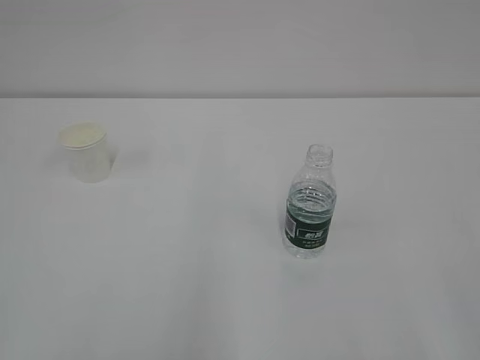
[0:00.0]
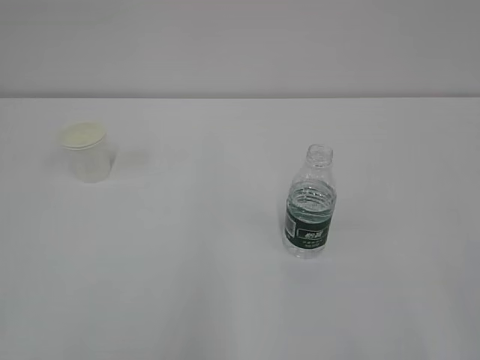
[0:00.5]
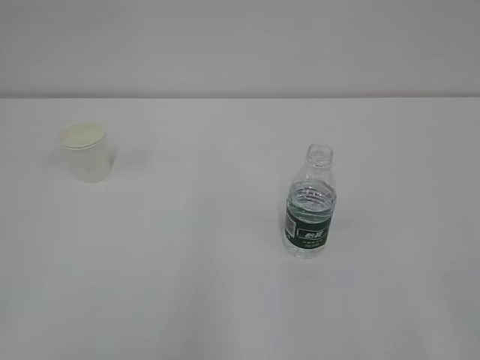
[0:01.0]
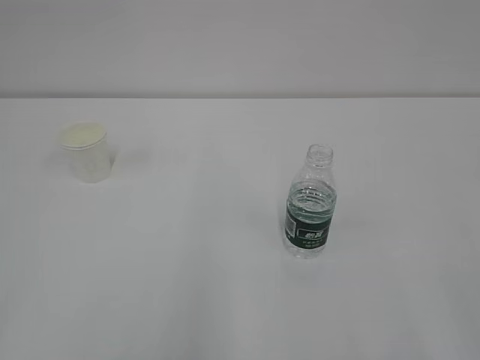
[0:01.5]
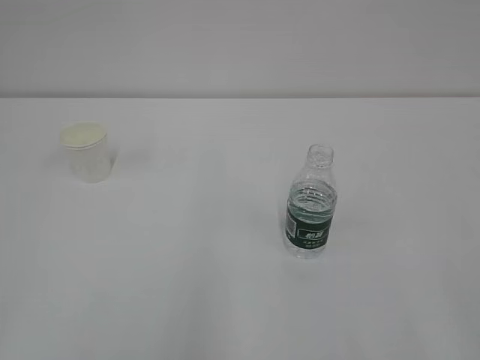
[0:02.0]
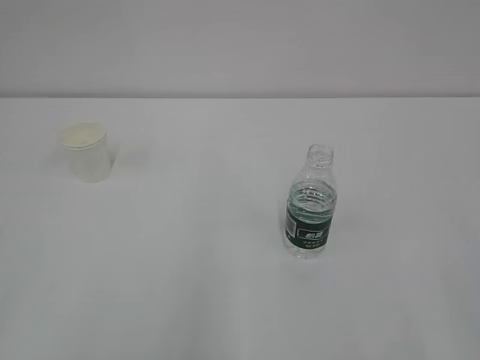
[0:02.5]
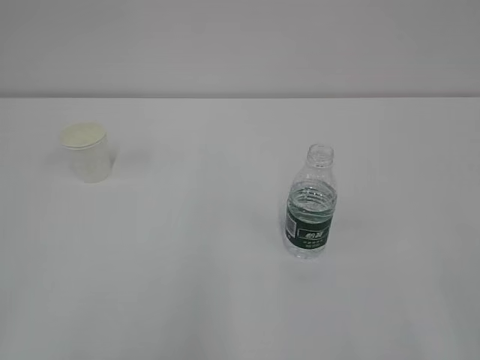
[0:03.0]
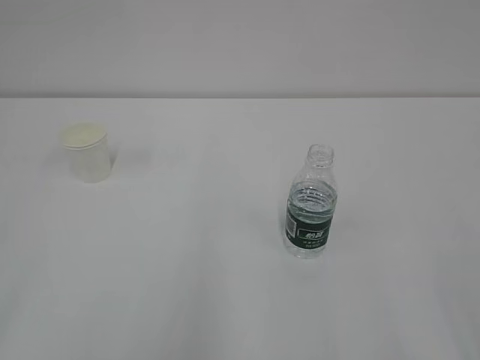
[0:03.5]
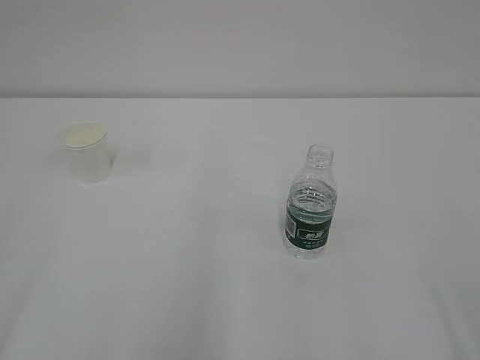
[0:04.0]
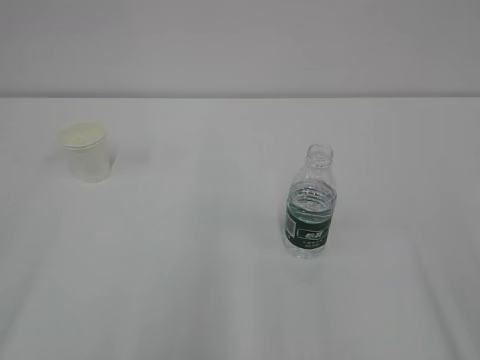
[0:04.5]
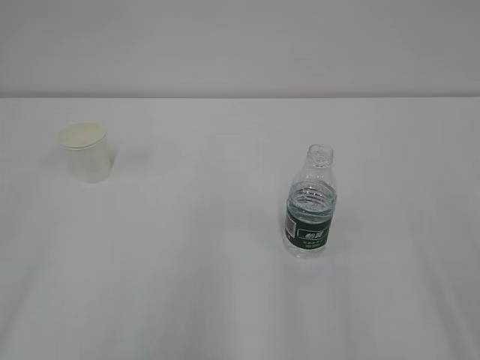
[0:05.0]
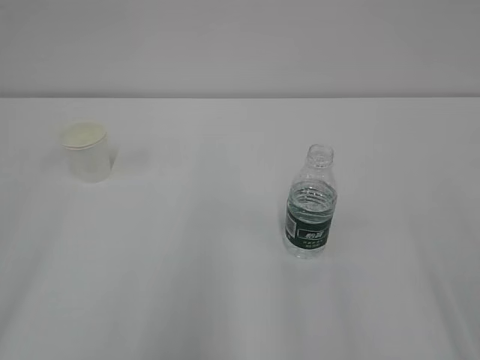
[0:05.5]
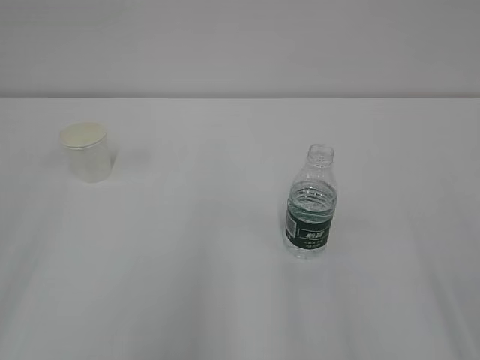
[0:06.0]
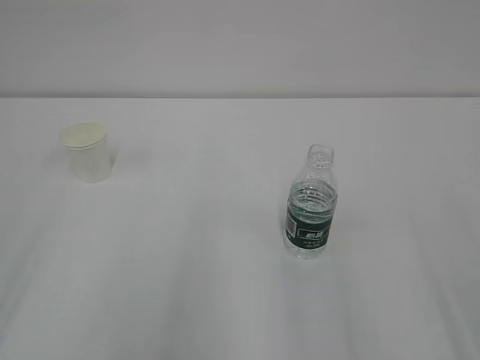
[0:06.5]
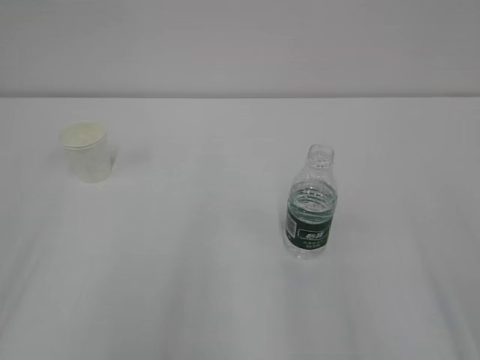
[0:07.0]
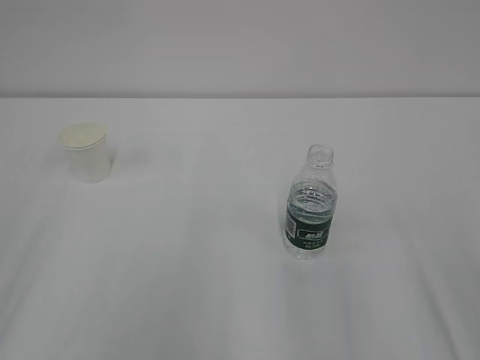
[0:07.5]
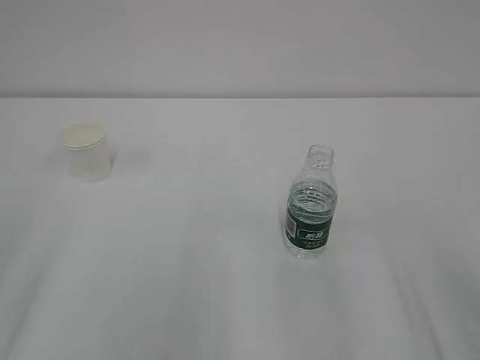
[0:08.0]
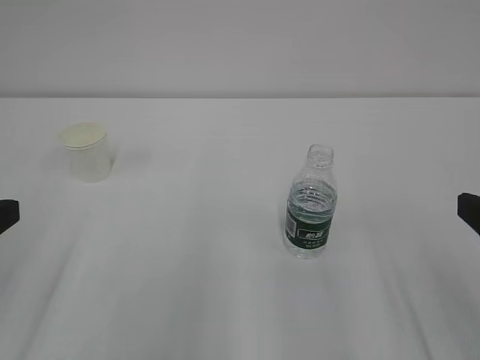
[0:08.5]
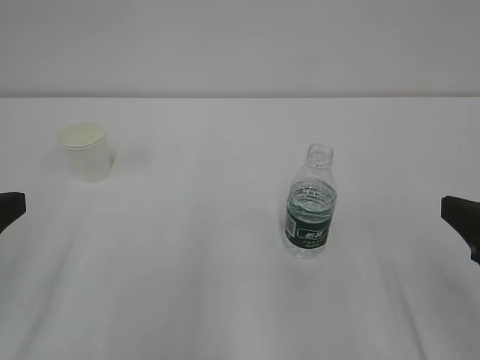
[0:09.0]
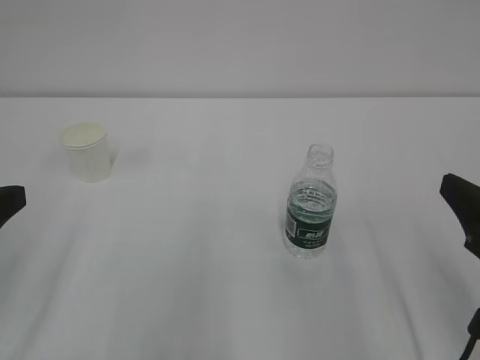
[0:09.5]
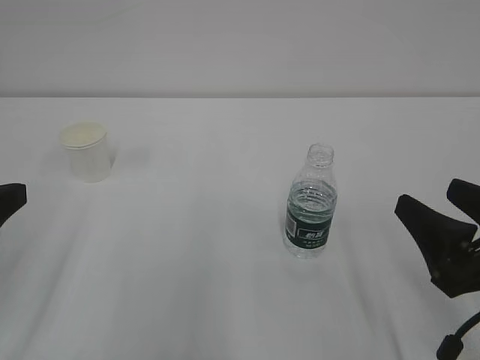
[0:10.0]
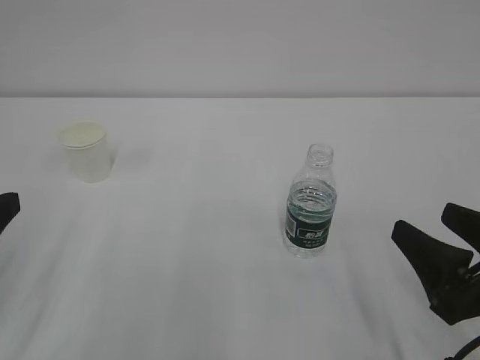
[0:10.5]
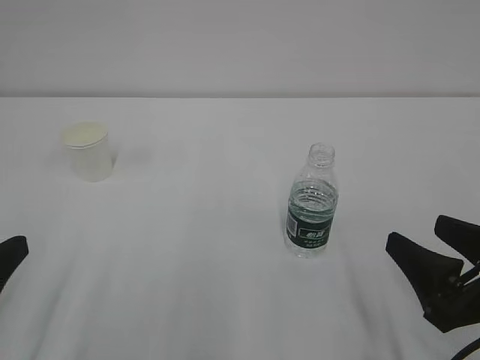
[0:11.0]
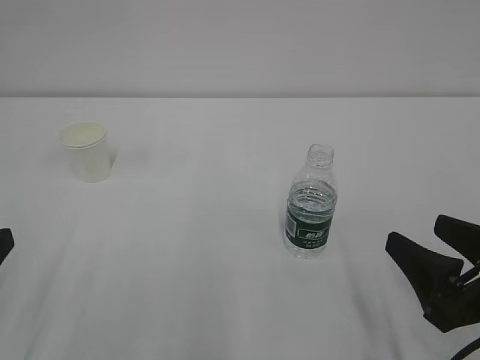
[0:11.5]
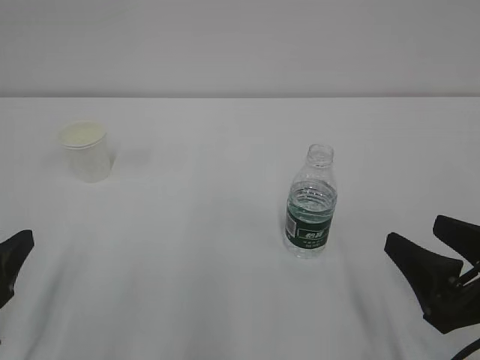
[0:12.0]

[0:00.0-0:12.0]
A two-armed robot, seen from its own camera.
0:08.0 to 0:10.0: The right gripper goes some 10 cm downward.
0:10.0 to 0:12.0: The left gripper moves downward, about 10 cm, and opens up.

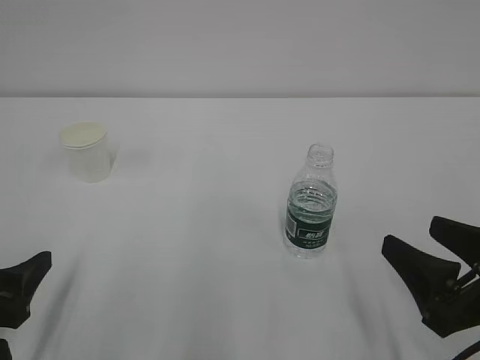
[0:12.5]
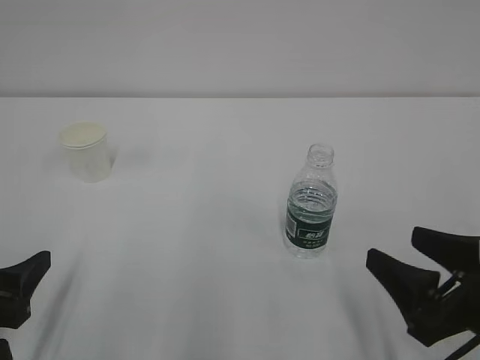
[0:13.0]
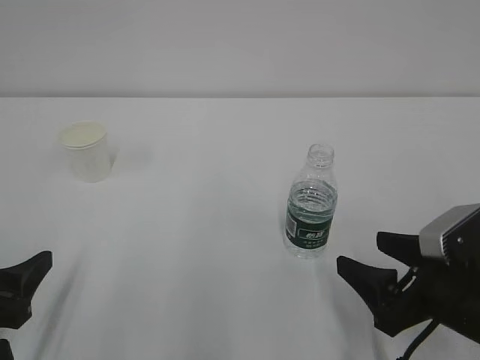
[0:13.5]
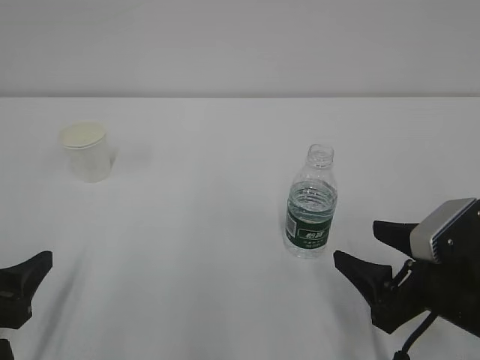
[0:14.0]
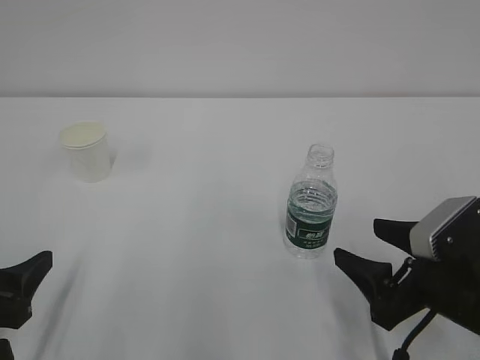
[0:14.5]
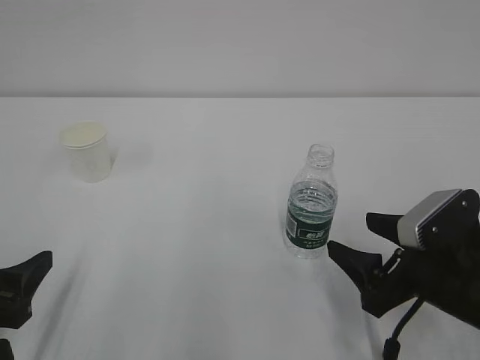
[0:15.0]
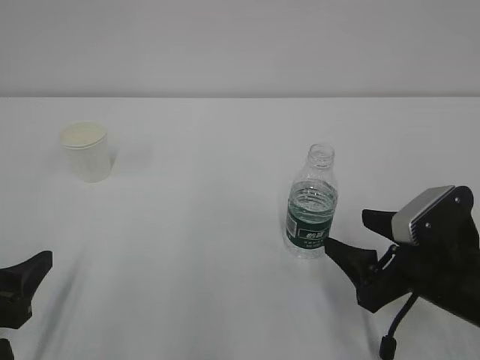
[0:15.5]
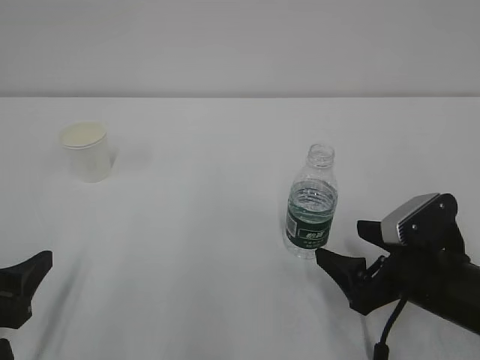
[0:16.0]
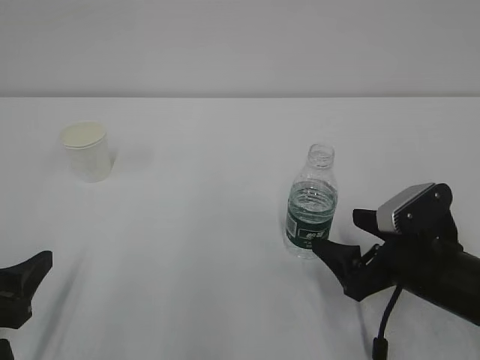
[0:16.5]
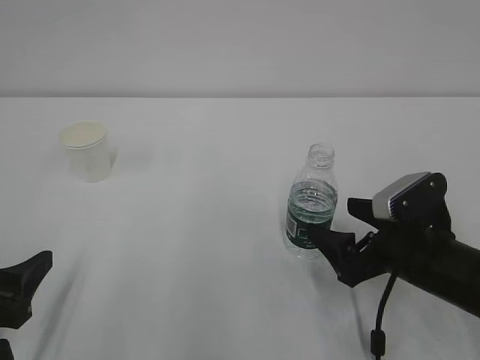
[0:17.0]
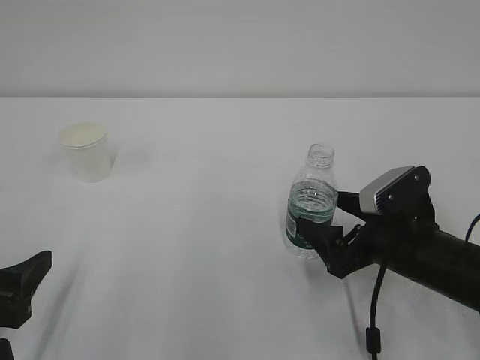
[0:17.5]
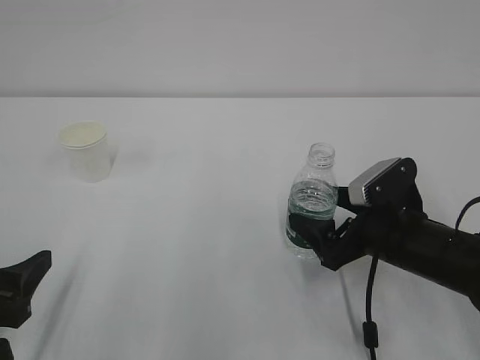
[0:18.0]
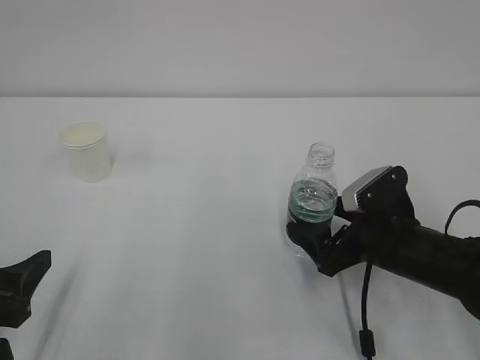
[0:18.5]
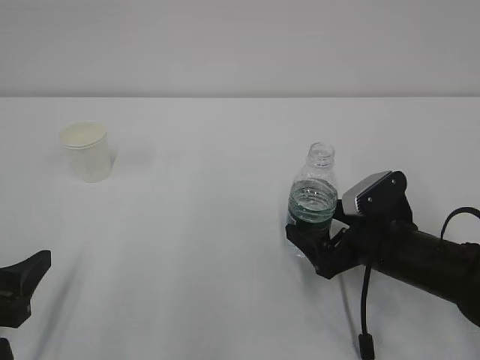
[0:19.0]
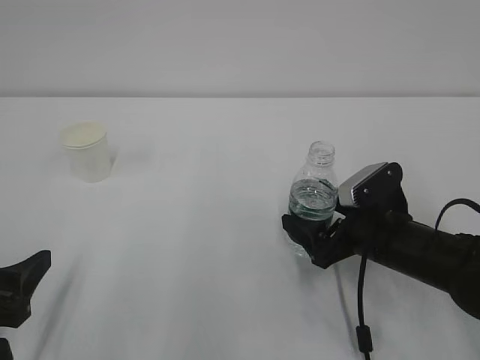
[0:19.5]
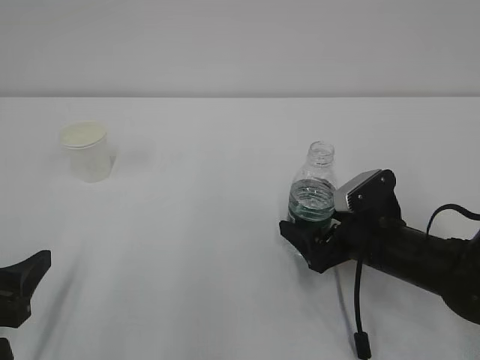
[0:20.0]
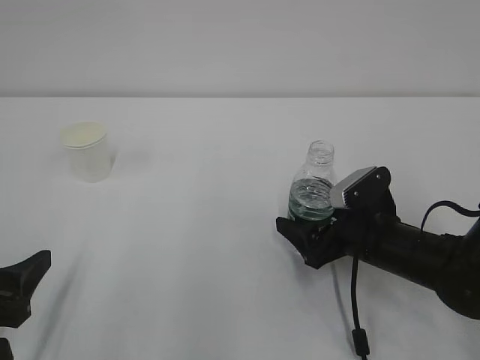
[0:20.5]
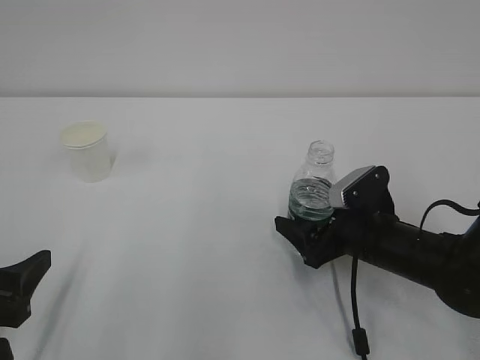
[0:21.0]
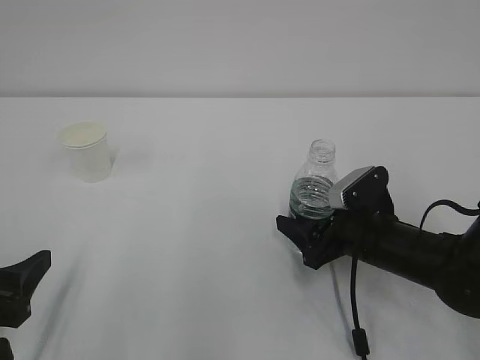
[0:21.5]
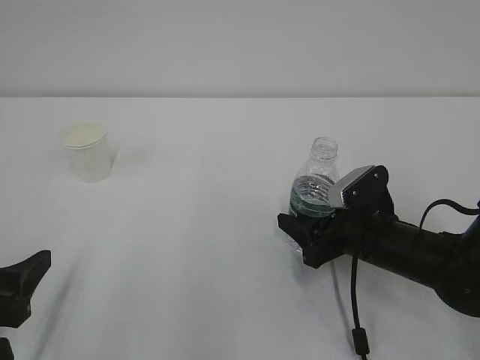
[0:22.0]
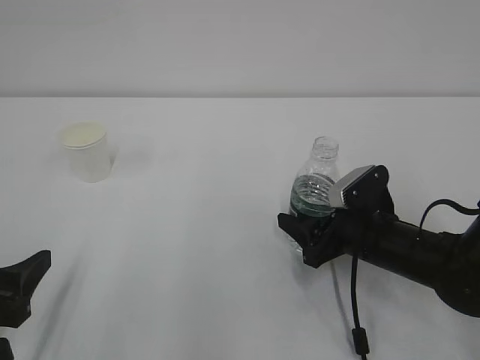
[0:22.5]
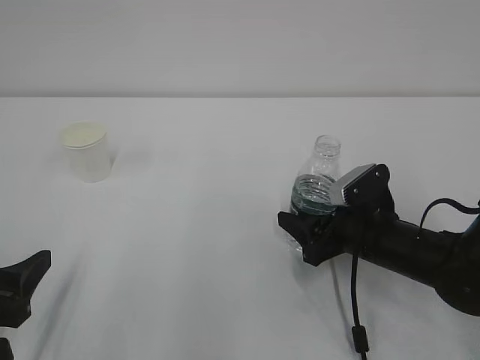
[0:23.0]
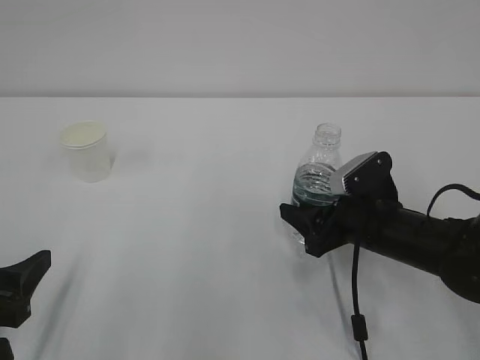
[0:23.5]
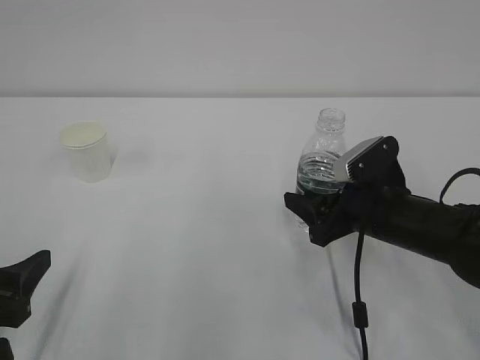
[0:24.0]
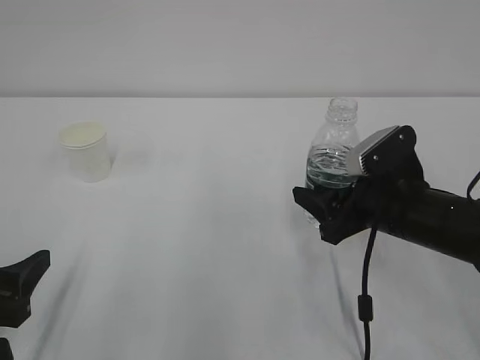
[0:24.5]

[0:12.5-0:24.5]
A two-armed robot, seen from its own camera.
0:12.5 to 0:14.5: The right gripper moves some 5 cm.
0:14.5 to 0:16.5: The right gripper opens.
0:16.5 to 0:18.5: The right gripper shifts by roughly 5 cm.
0:18.5 to 0:20.5: The grippers stay close to where they were, moving slightly.
0:20.5 to 0:22.5: The right gripper closes.
0:22.5 to 0:24.5: The right gripper is displaced upward by roughly 5 cm.

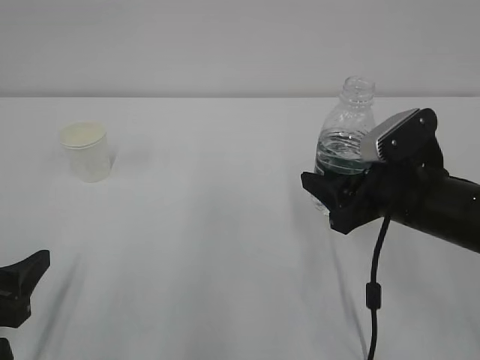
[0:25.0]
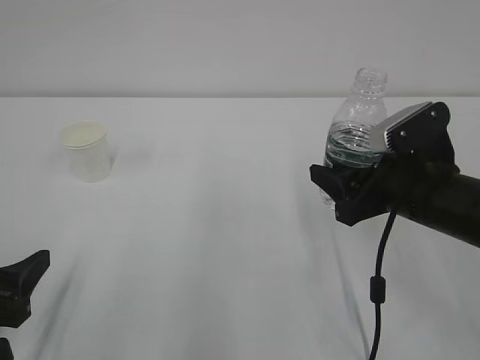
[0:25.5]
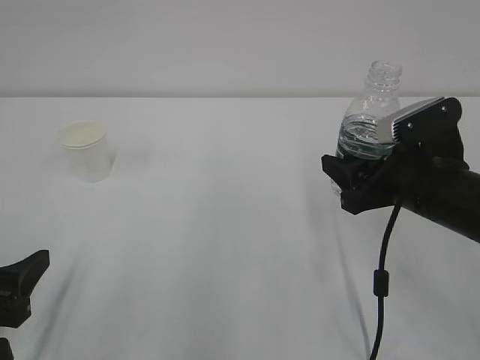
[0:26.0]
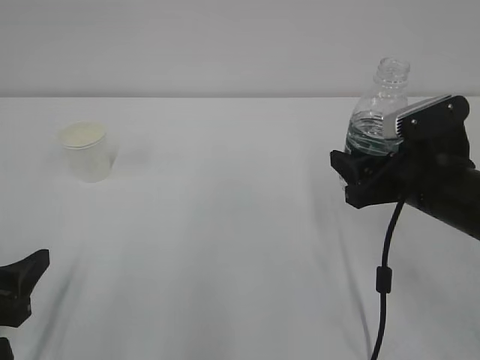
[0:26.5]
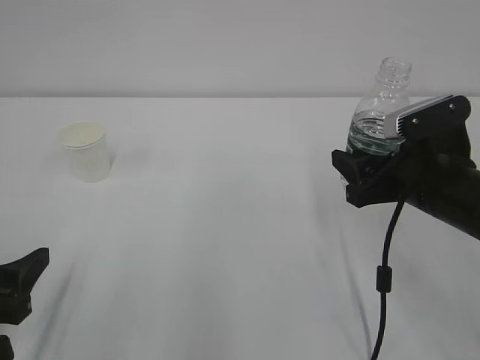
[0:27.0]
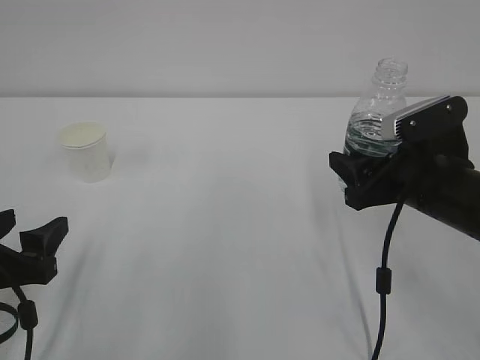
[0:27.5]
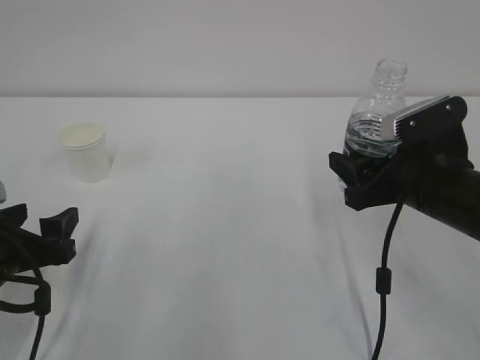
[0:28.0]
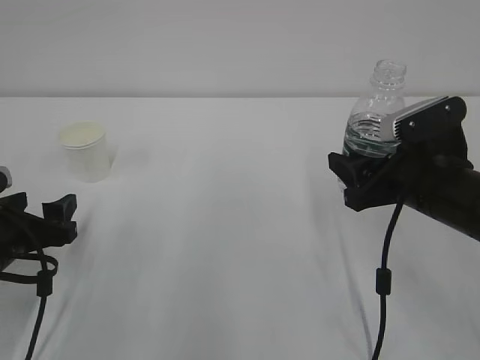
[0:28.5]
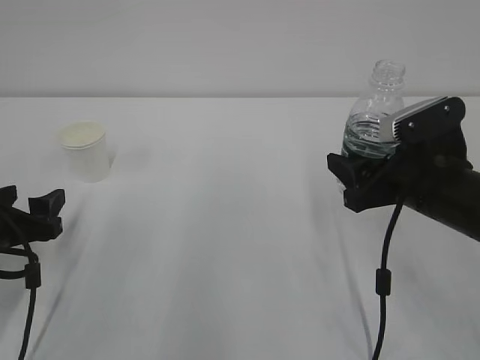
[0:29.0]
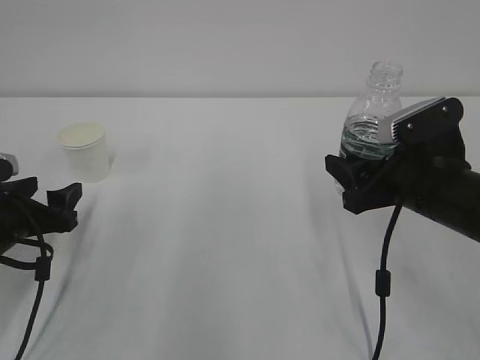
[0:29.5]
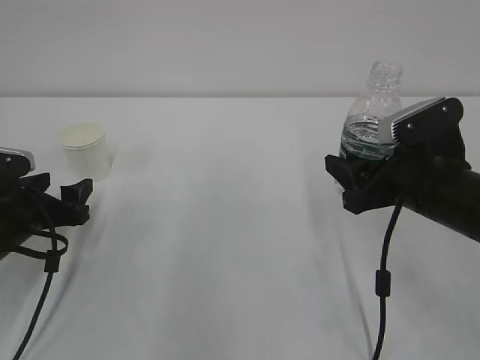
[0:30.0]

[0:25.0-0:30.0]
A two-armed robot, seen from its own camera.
0:25.0 to 0:27.5: The grippers make only small movements.
0:27.5 to 0:30.0: The left gripper shifts roughly 10 cm forward.
